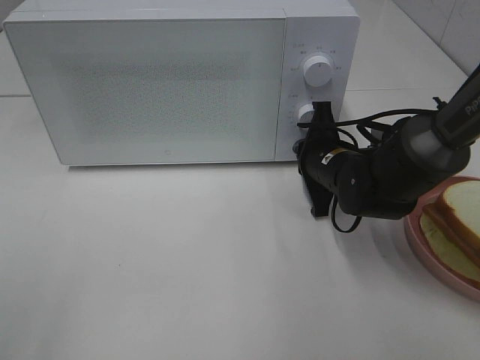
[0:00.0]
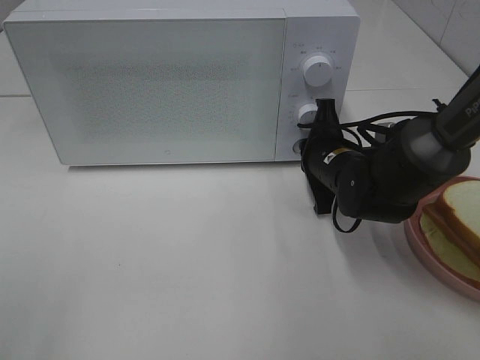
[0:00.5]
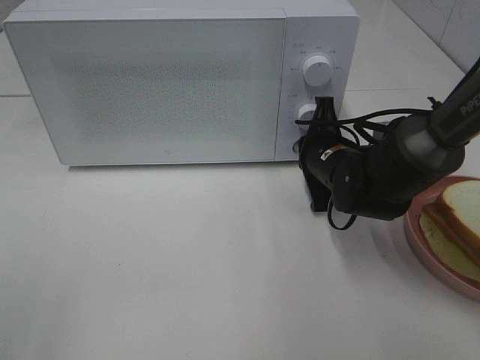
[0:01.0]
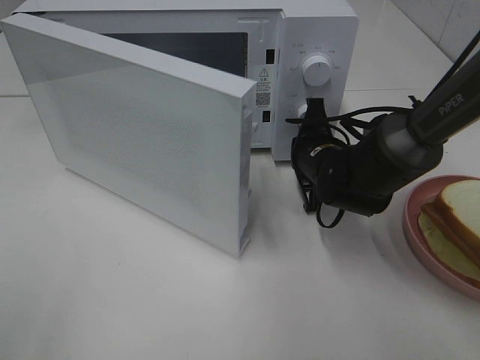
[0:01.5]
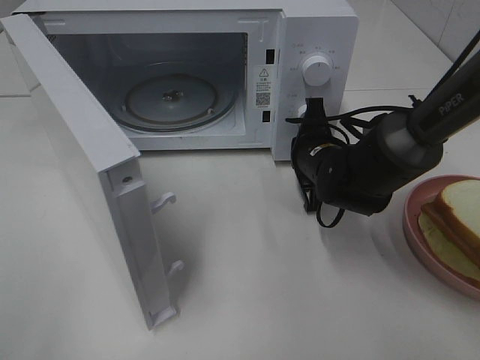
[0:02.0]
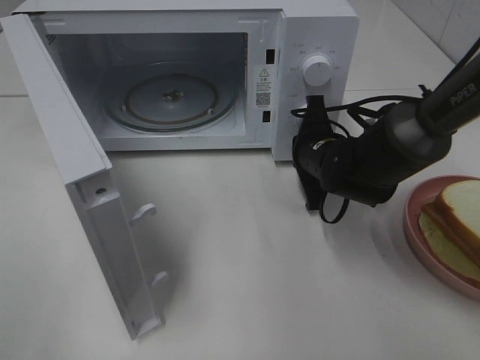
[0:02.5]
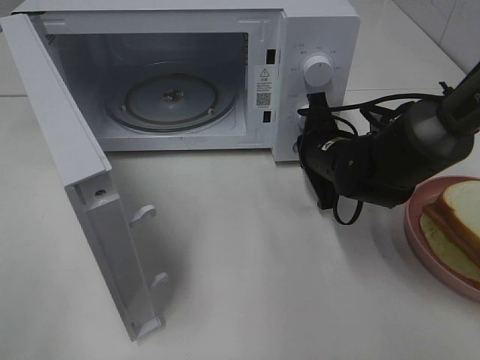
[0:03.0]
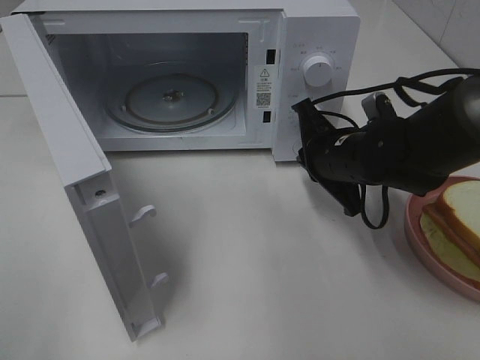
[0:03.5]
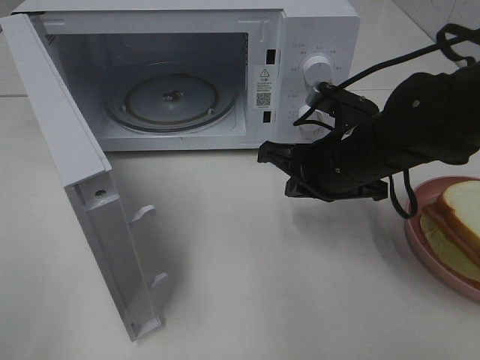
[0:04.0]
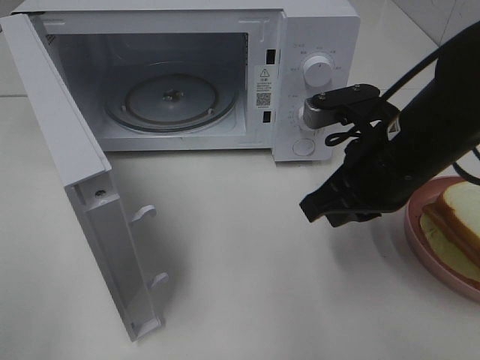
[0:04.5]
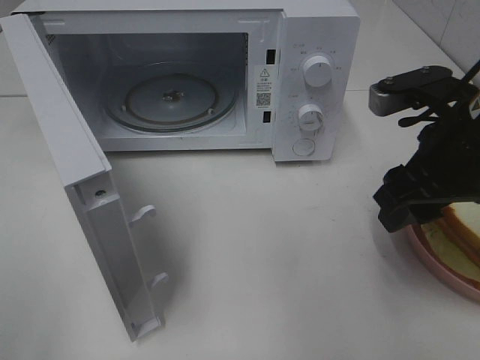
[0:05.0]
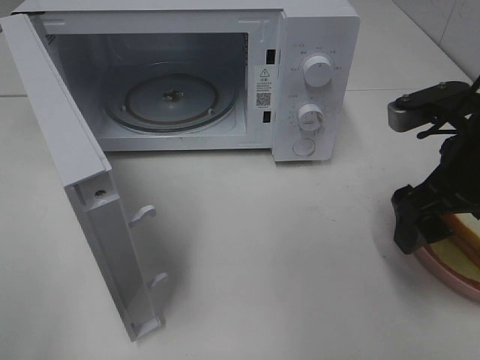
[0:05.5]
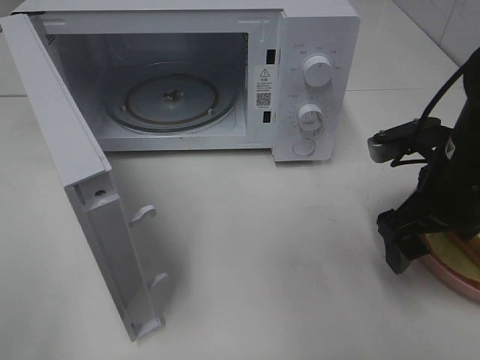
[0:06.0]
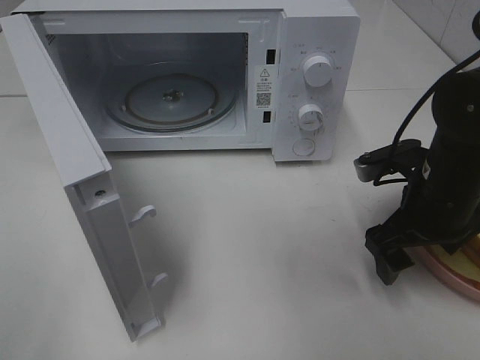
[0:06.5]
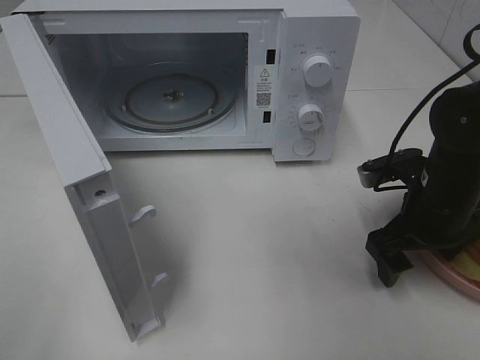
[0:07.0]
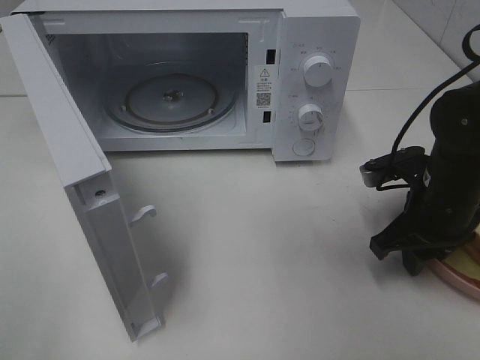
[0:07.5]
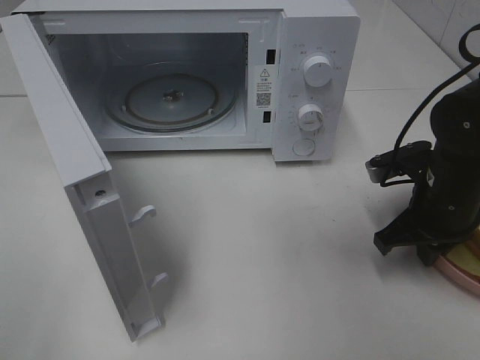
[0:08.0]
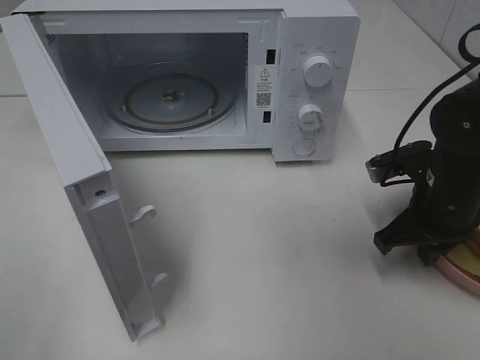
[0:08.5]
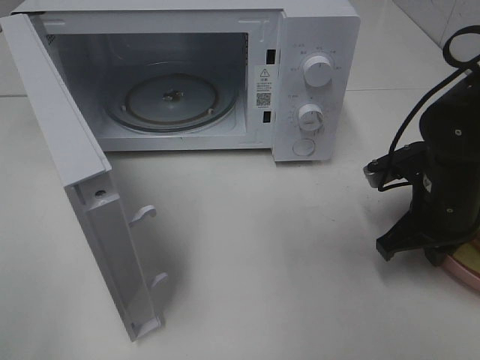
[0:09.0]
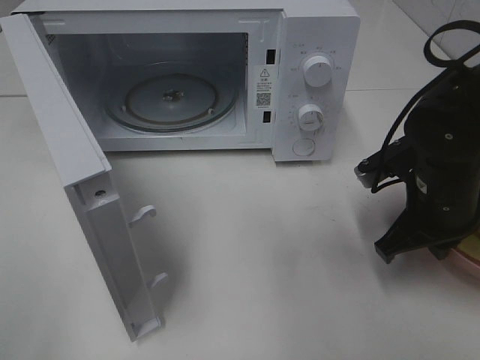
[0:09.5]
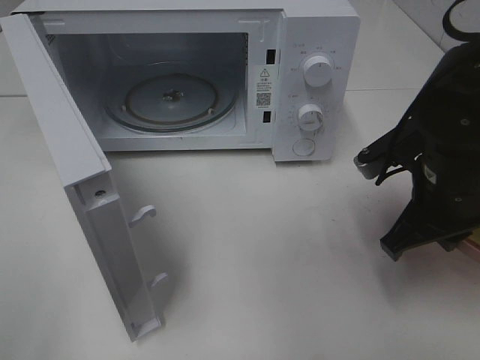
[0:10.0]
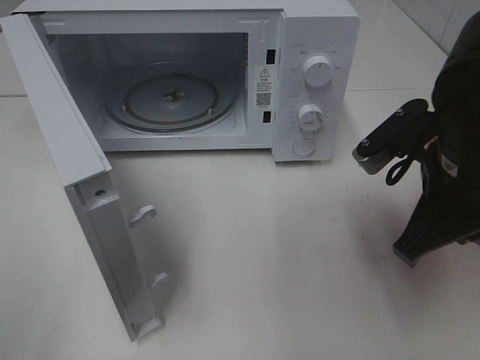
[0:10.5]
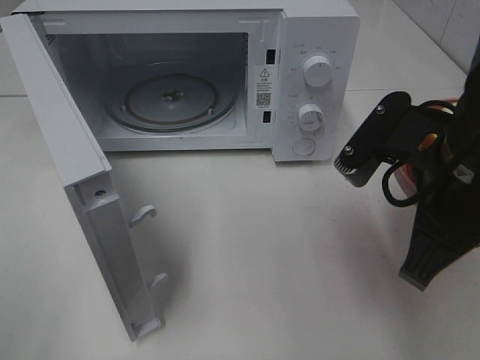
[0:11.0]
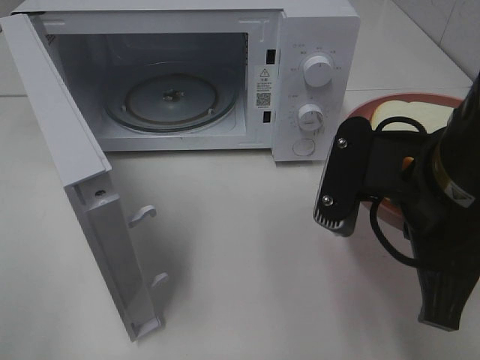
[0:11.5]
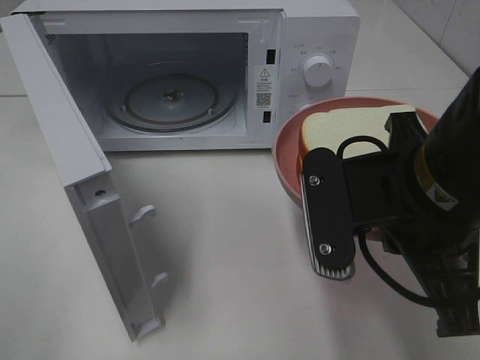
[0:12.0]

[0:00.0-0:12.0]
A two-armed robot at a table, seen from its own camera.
Task of the whole recording: Heat Sandwich.
Step, 0:00.0 to 0:03.0: Right hand: press the switch.
Step, 0:03.5 to 0:08.5: Right hand: grab the plate with the sandwich.
0:02.0 to 0:04.0: The right gripper shifts approximately 10 cm backward and upward.
0:04.0 to 0:06.0: The right gripper goes some 10 cm to the right, and opens.
0:06.0 to 0:08.0: The right gripper goes approximately 5 cm downward, and closes.
0:08.0 to 0:10.0: The right gripper travels upward by approximately 5 cm.
0:10.0 to 0:12.0: The right gripper heads backward, to the left and upward, covering roughly 15 cm.

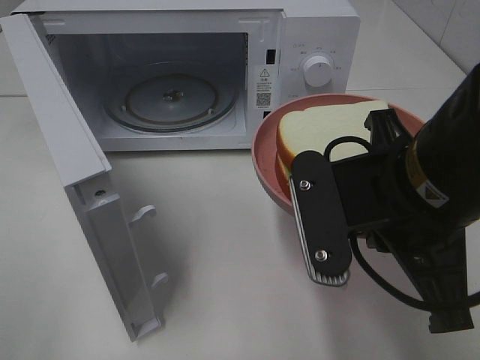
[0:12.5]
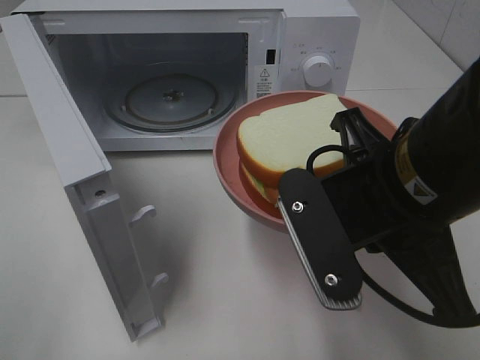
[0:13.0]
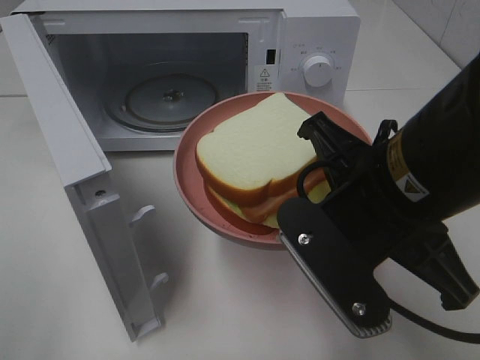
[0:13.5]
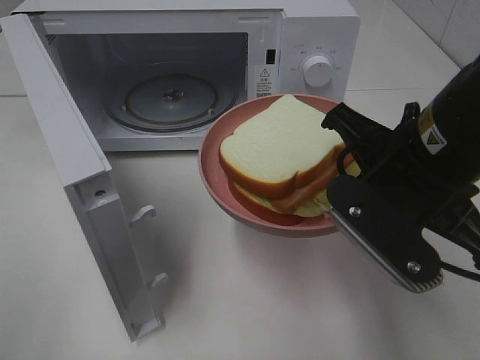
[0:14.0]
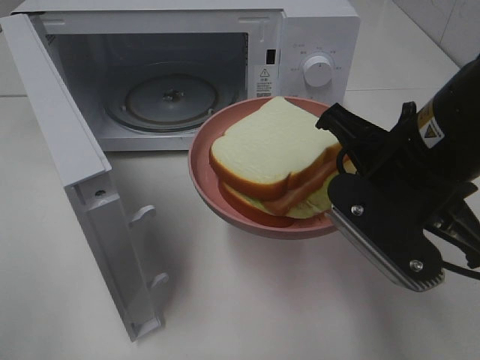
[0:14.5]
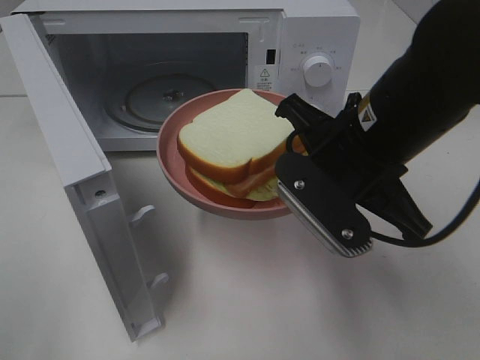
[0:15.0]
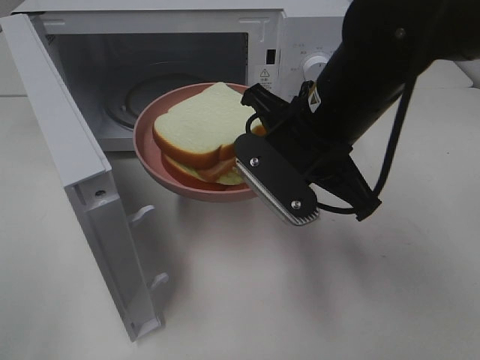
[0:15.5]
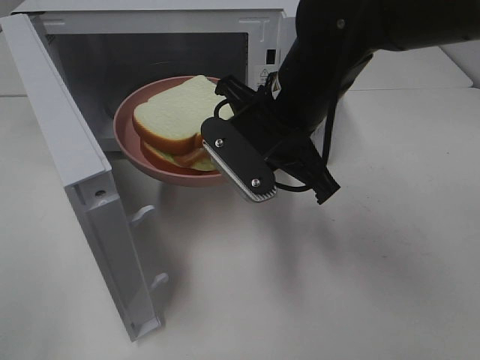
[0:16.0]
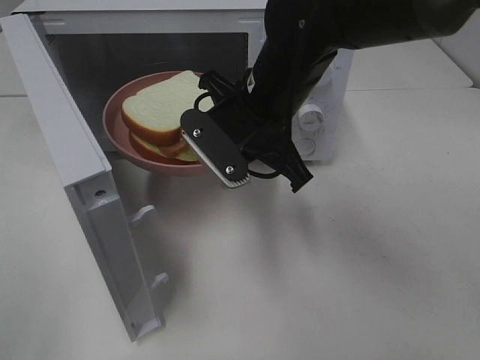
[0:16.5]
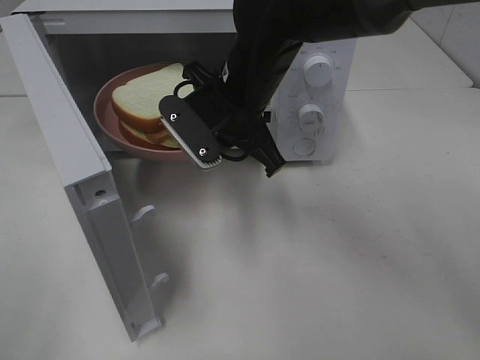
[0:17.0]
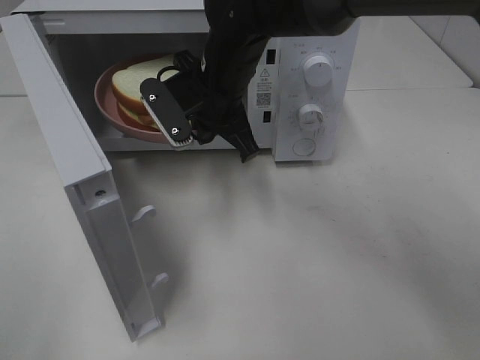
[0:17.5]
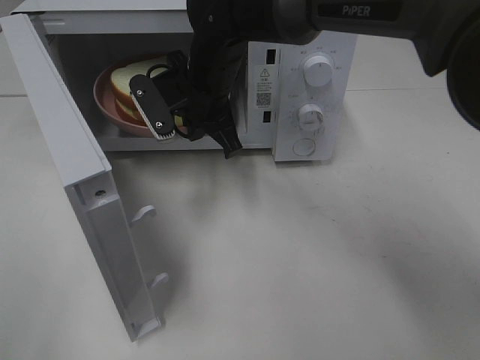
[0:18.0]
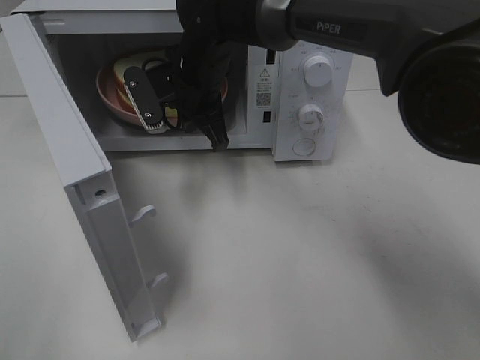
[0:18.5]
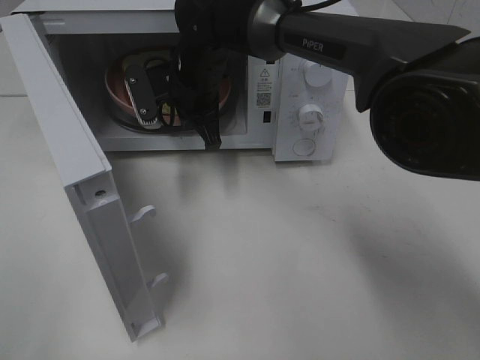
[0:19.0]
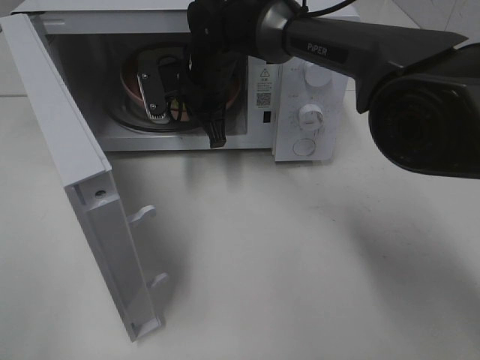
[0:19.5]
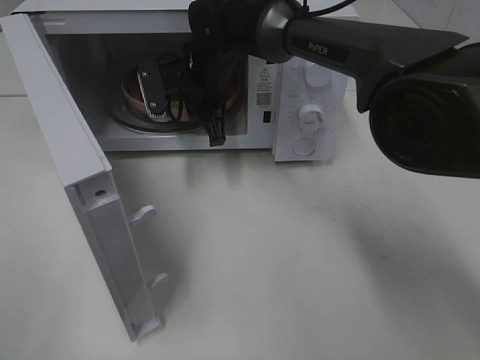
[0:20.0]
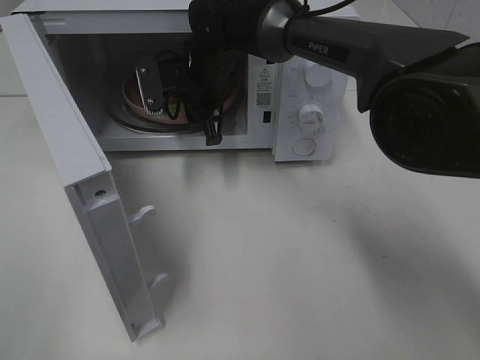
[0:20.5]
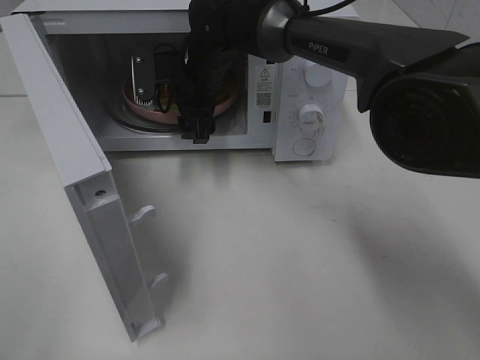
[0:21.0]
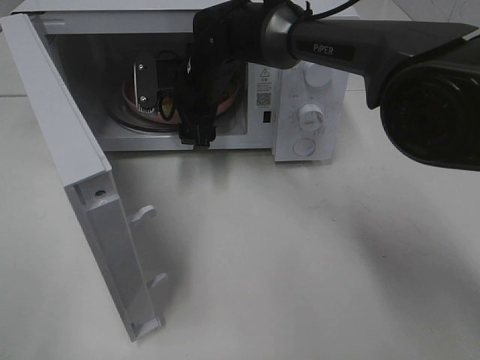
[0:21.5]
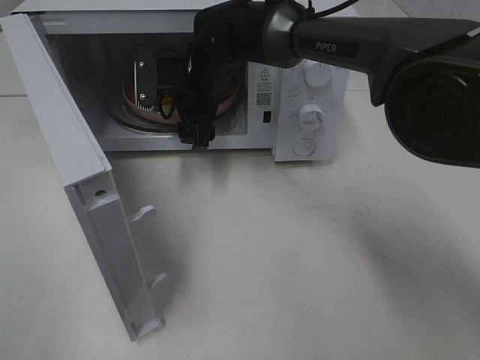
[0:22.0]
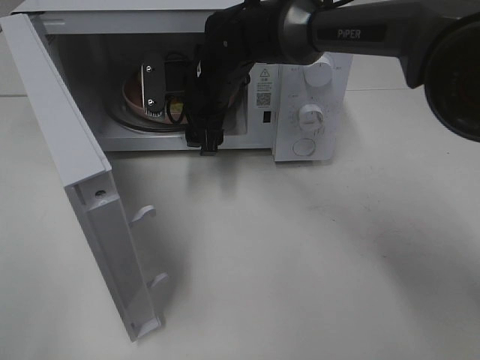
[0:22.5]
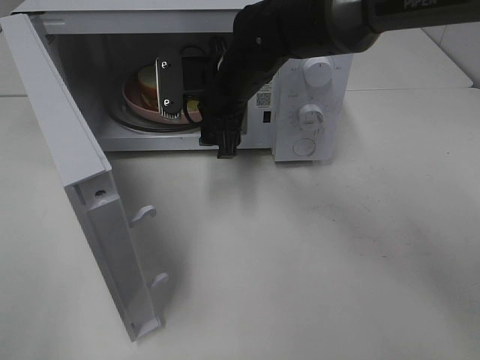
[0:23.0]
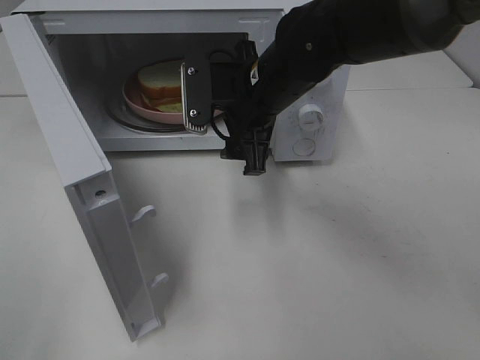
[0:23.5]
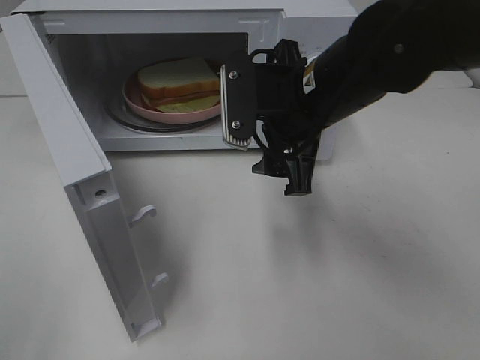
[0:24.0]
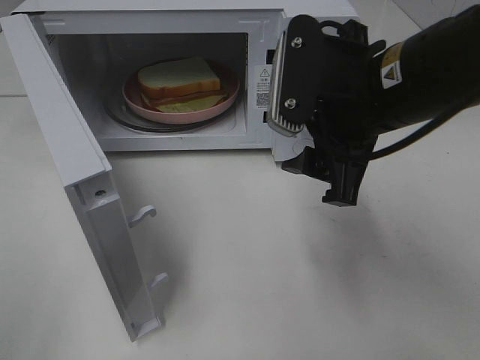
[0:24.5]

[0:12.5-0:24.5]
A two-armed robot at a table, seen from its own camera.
Task of the whole recording: Heat Sandwich.
Step, 0:12.5 to 0:23.0: Right hand: place the plate in the microwave.
0:14.5 to 0:16.5: The right gripper shifts about 15 cm forward and to the left.
0:16.5 to 0:18.5: The right gripper shifts about 15 cm forward and to the left.
0:18.5 to 0:20.5: The right gripper opens.
0:20.5 to 0:22.5: The grippers stay close to where they were, moving slightly.
0:22.5 to 0:24.5: The right gripper is displaced backward, to the right and upward by roughly 25 cm.

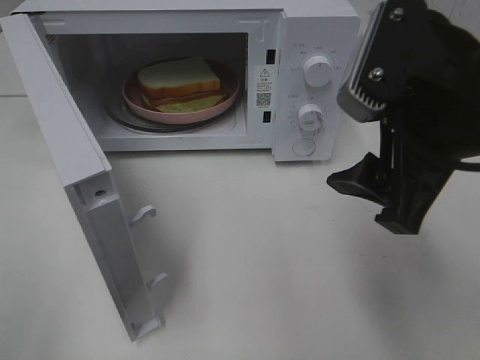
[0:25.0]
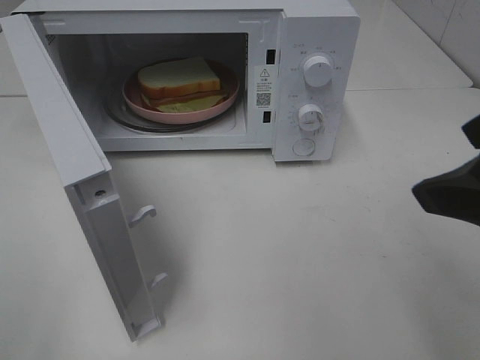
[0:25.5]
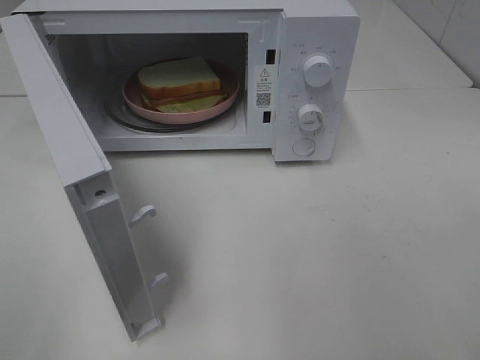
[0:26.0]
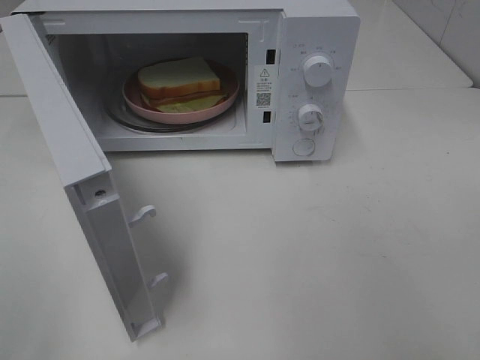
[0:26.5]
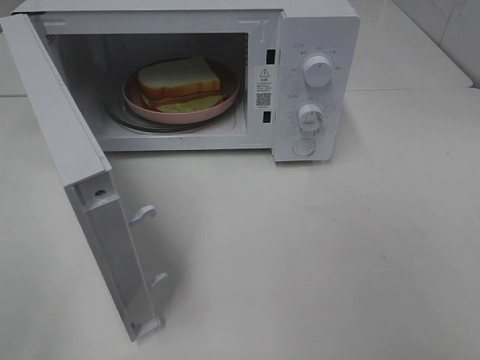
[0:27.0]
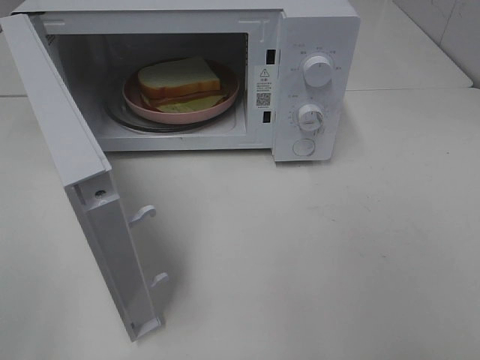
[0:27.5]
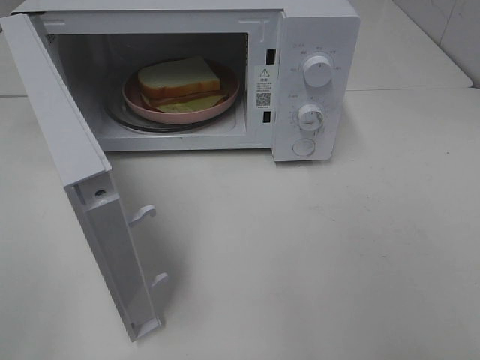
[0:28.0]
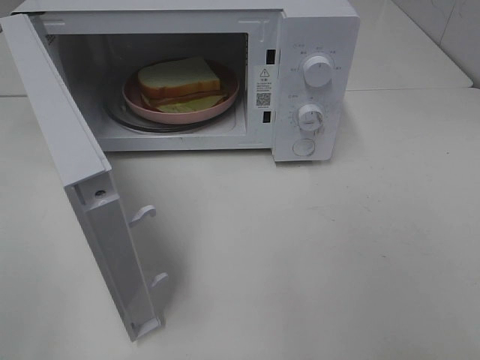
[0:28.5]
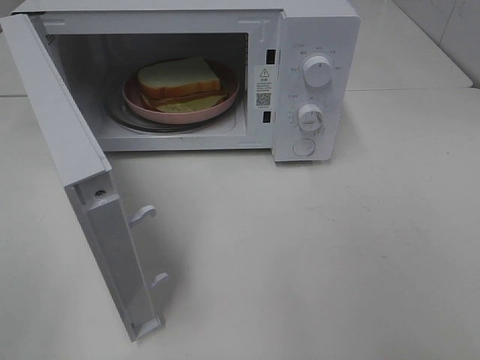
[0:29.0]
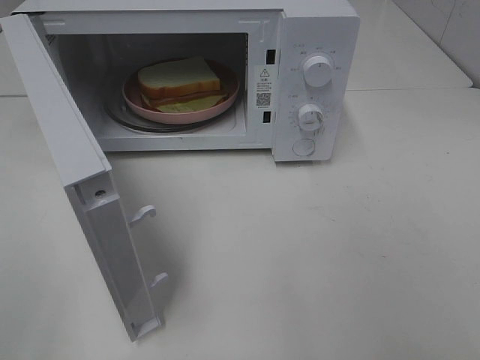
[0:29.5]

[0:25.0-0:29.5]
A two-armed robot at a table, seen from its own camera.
Task of the whole recording: Heat Sandwich.
0:25.0 to 0:27.0: The right gripper travels backward and to the right by roughly 20 cm.
